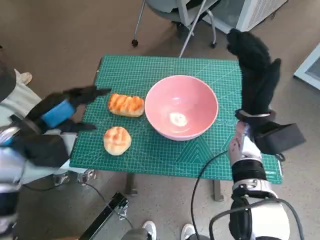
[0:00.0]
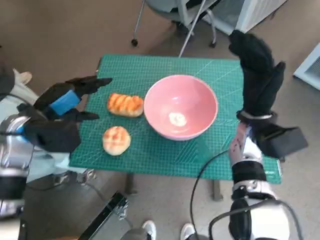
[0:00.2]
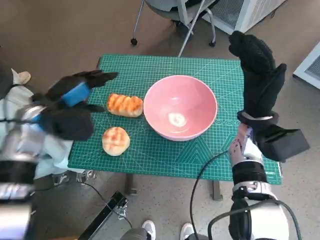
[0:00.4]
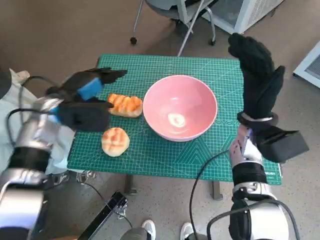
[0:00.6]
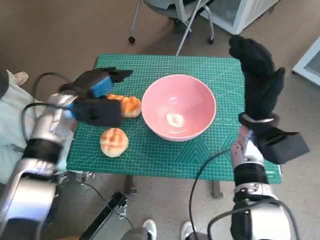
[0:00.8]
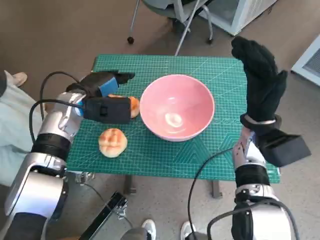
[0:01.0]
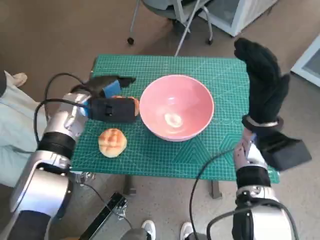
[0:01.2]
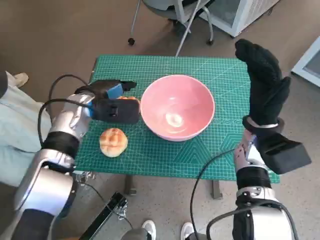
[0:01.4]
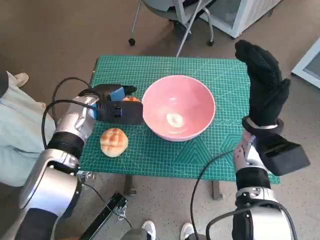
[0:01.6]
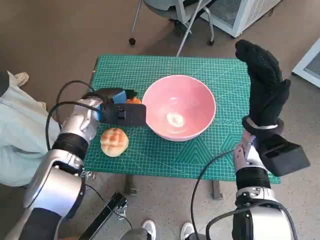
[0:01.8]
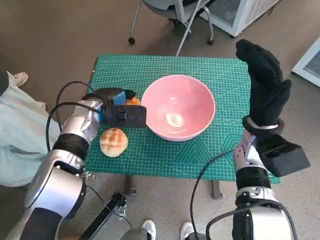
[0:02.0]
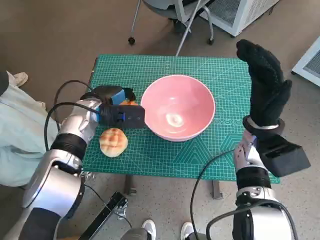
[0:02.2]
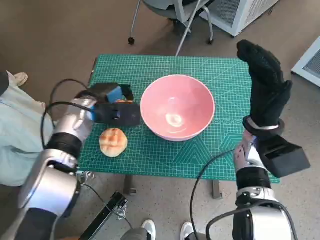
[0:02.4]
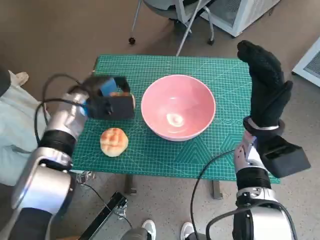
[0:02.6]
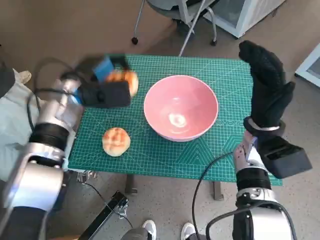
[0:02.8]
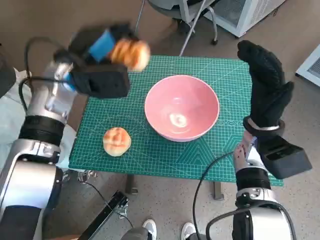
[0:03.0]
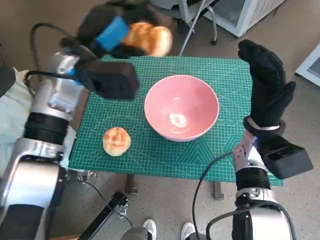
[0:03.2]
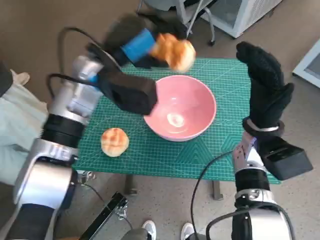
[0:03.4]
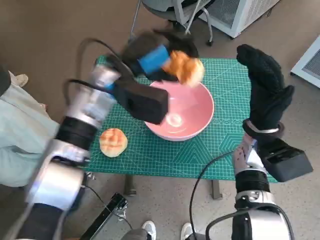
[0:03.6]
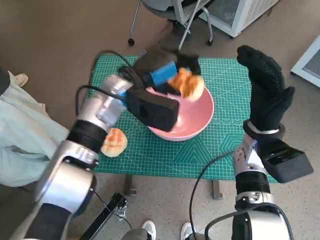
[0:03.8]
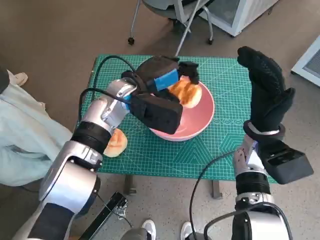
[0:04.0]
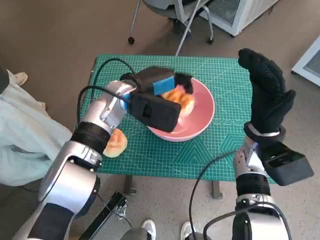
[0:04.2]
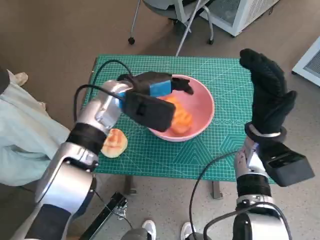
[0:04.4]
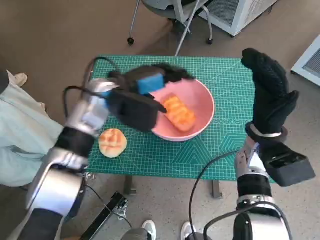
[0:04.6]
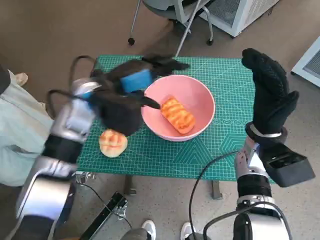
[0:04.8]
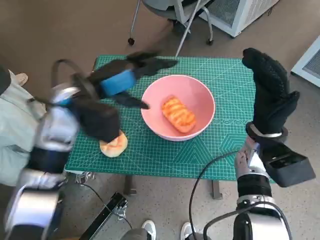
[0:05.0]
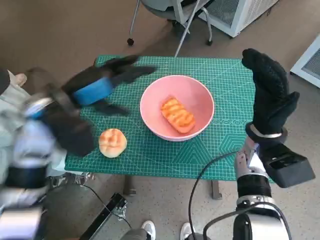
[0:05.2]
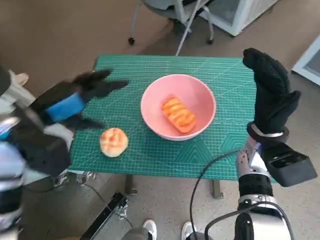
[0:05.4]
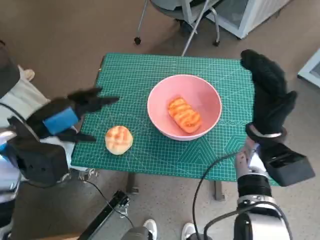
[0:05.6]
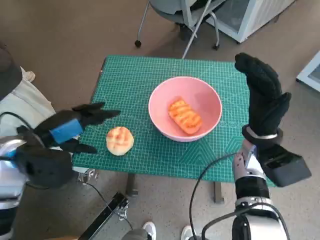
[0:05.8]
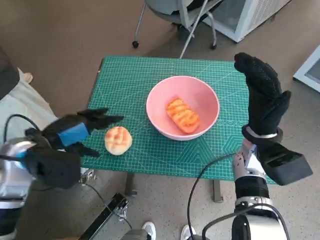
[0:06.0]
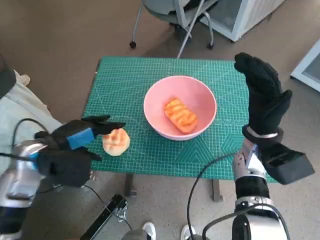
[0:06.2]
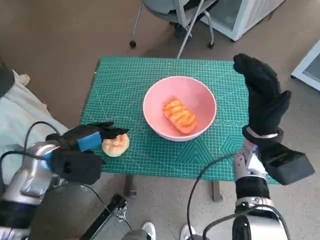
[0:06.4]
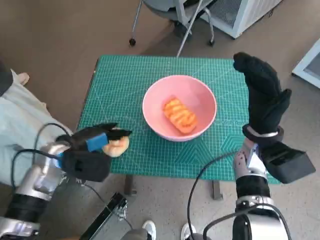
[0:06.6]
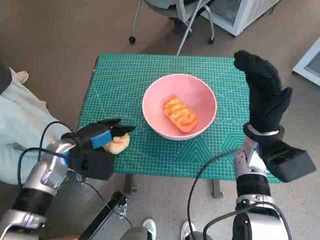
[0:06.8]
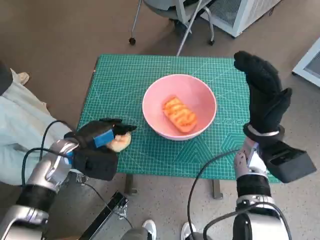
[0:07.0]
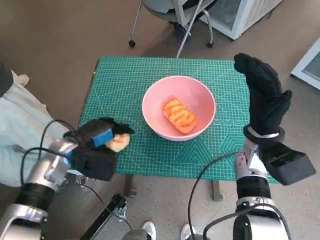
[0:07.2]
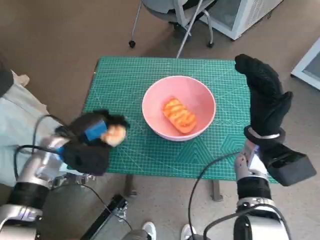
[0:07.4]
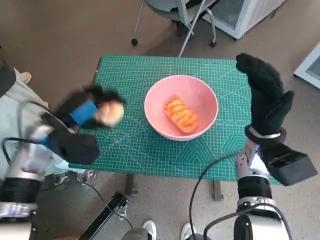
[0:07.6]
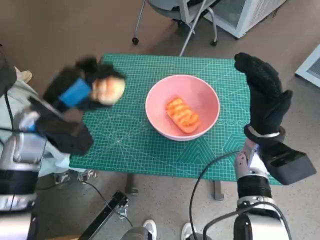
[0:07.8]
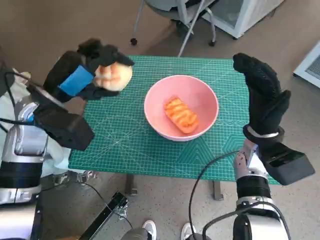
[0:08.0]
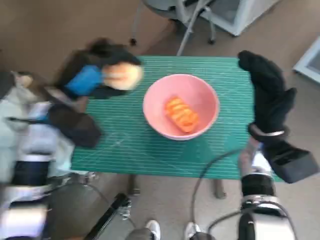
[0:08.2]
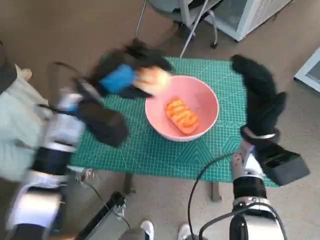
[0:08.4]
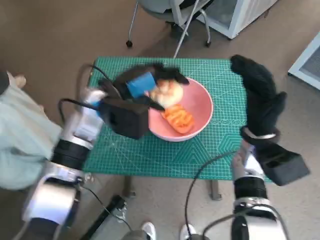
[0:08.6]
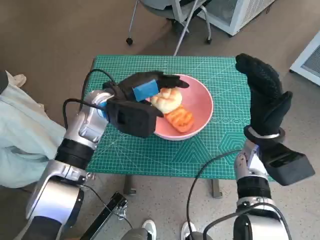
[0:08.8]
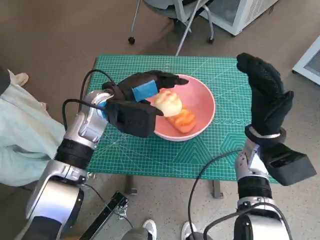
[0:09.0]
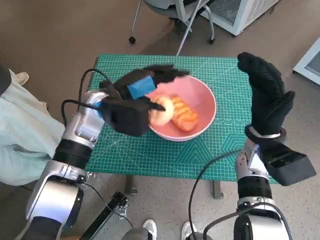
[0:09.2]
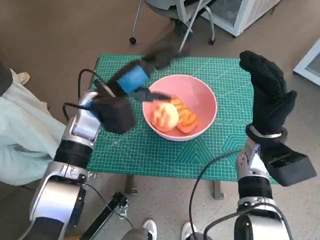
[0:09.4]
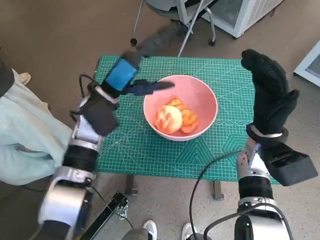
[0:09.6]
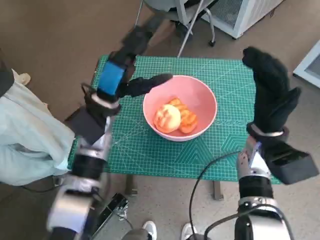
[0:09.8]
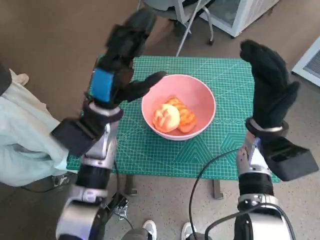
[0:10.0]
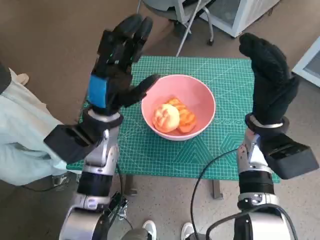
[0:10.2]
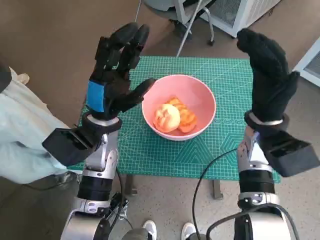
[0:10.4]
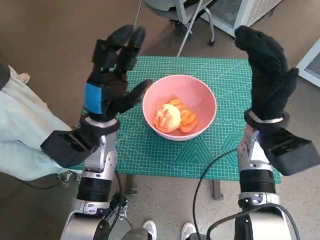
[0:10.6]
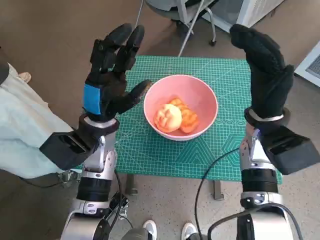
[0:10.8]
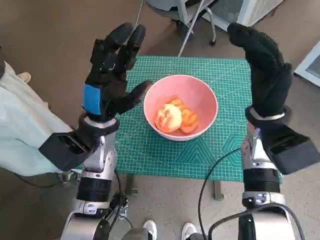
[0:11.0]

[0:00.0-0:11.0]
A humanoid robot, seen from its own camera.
Task of the whole recording: Push the bowl to the center of the table and put the bread into the bowl.
Step, 0:00.0 to 0:02.2: Grasp the long bread with left hand.
Step, 0:02.4 to 0:04.2: Place the long bread in pink bowl with left hand.
Step, 0:04.6 to 0:07.2: Grasp the round bread with left hand.
Step, 0:07.4 to 0:09.2: Place the round bread in pink bowl with left hand.
0:00.0 to 0:01.6: The left hand travels forward and to the right by some 15 cm.
0:01.6 to 0:03.2: The left hand heads upward, covering about 10 cm.
0:04.8 to 0:06.2: The left hand moves to the left, backward and downward, some 15 cm.
0:06.2 to 0:07.8: The left hand travels downward and back again, roughly 5 cm each way.
0:07.8 to 0:09.4: The left hand moves to the right and forward, some 10 cm.
0:09.4 to 0:11.0: The right hand travels upward by some 5 cm, while the left hand shifts by roughly 5 cm.
